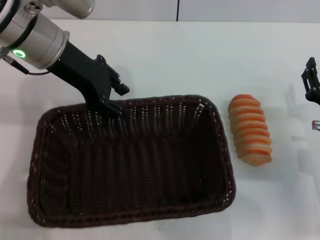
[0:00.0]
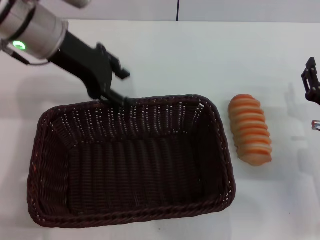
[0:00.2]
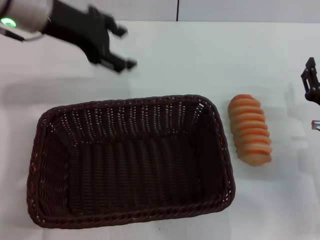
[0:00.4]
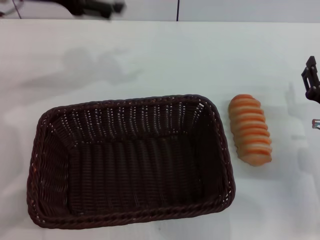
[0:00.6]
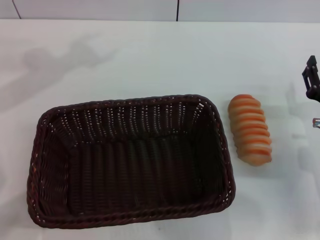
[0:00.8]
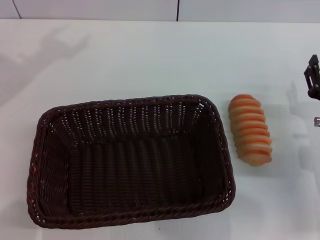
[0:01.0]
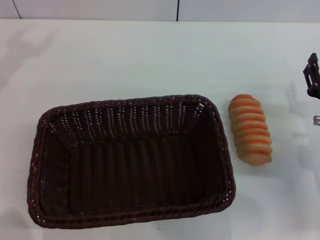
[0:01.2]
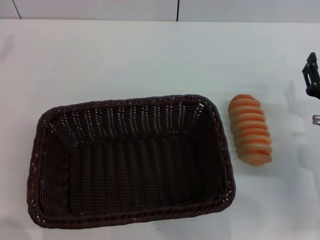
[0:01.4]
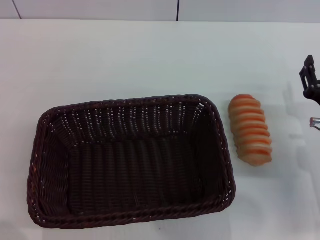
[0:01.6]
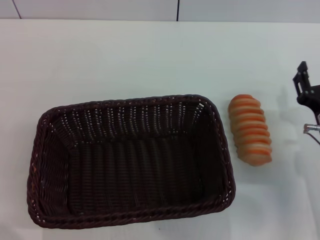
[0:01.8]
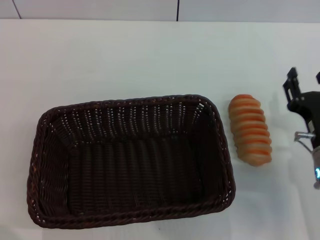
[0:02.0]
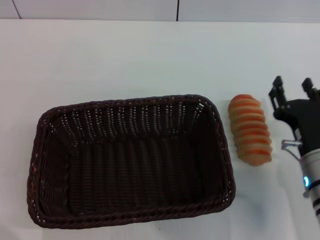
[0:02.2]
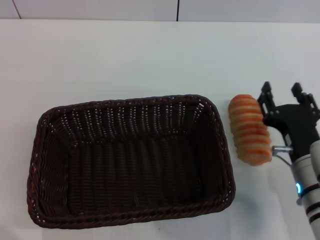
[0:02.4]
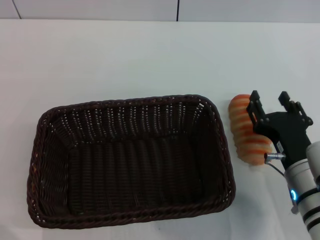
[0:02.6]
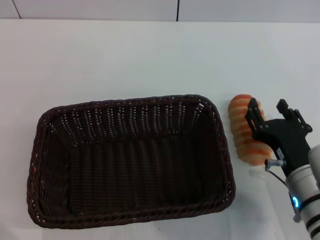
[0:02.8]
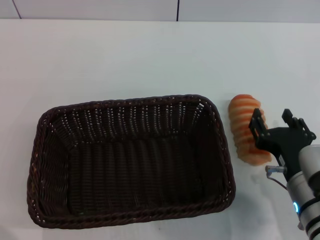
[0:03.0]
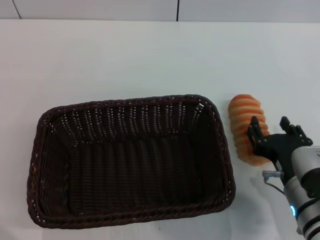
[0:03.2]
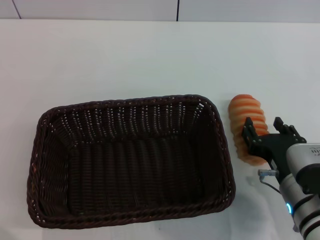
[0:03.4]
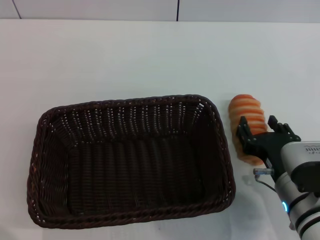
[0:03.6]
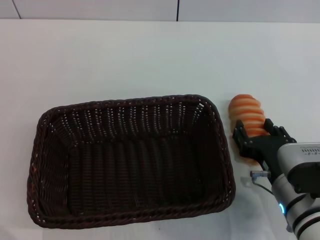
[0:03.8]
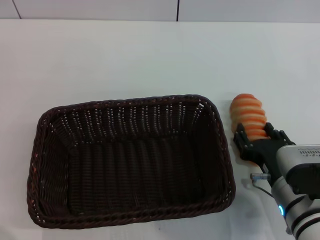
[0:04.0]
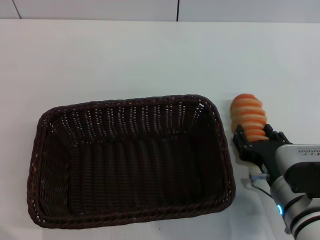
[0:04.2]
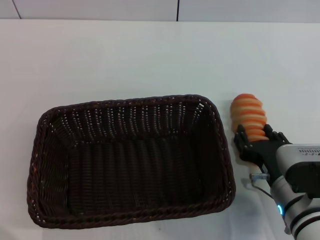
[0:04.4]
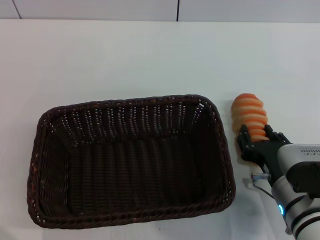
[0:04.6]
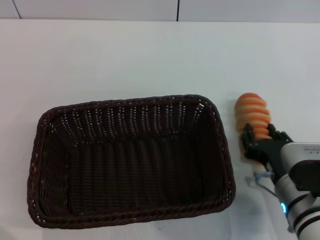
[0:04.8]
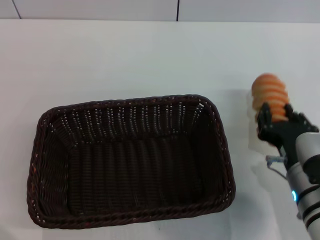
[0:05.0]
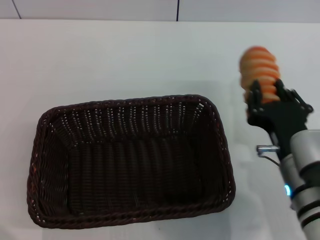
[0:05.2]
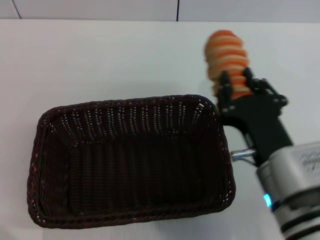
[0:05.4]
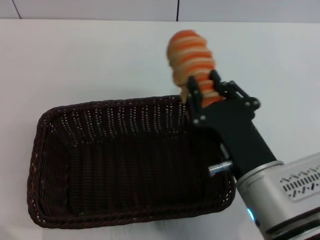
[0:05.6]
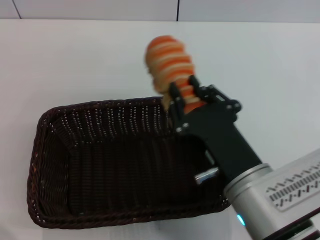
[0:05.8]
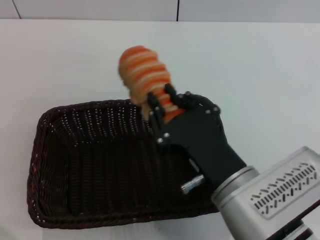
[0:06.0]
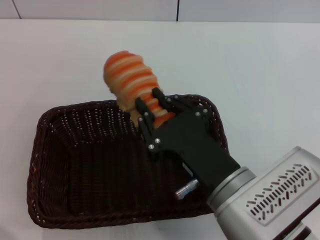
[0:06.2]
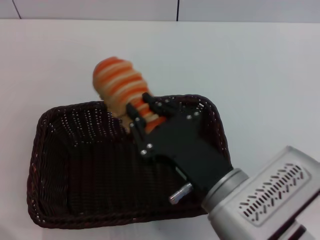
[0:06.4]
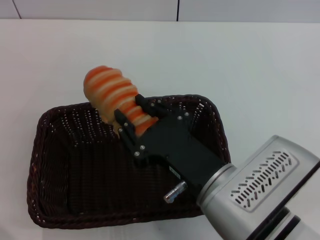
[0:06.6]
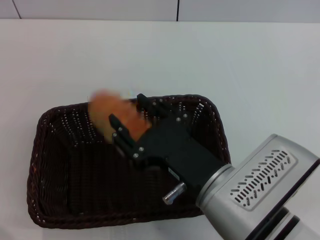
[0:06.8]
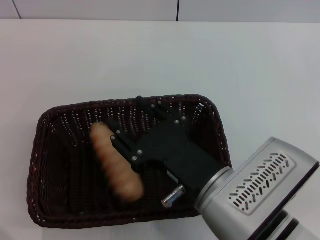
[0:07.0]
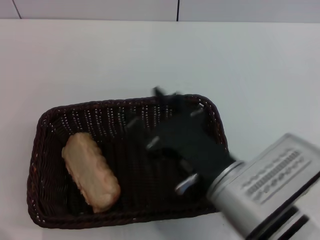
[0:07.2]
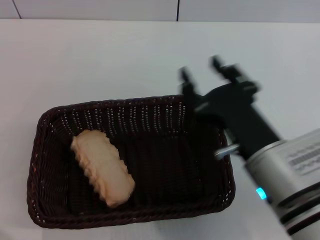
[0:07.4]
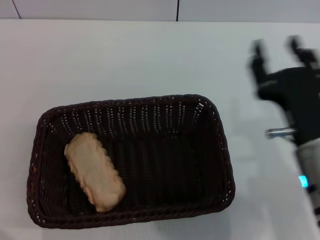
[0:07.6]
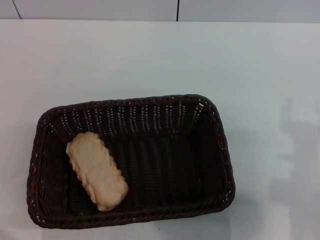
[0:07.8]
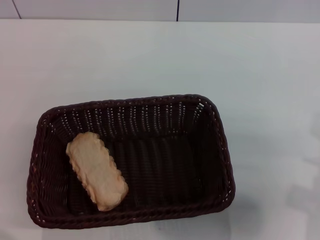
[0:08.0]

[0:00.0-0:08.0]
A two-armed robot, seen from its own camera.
Step, 0:00.6 to 0:04.8: Pick up the long bread with the right gripper.
Step, 0:05.0 to 0:06.8: Place the long bread into the dark basket with the right gripper.
0:00.0 to 0:01.6: The left gripper travels to the left by approximately 25 cm, and opens up.
0:01.6 to 0:03.2: The right gripper heads to the left and backward, covering approximately 10 cm.
0:03.2 to 0:04.8: The right gripper closes.
0:04.8 to 0:06.4: The right gripper moves to the left and upward, approximately 15 cm, and closes up.
0:06.4 to 0:08.0: The right gripper travels to the right by roughly 15 cm, and opens.

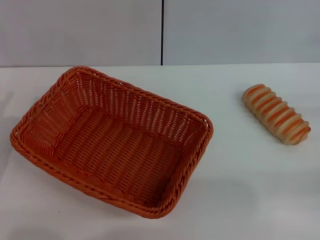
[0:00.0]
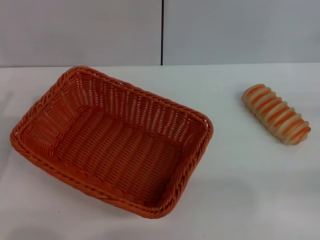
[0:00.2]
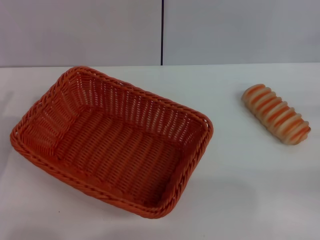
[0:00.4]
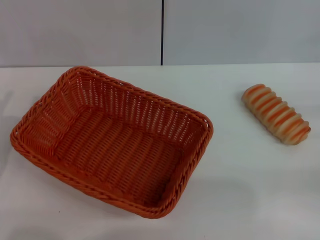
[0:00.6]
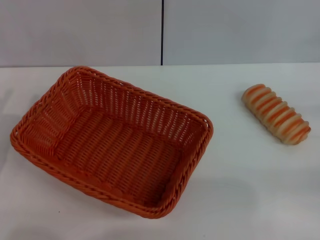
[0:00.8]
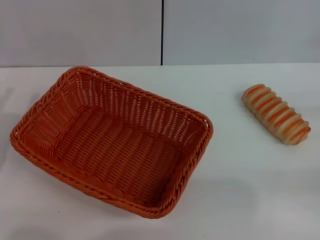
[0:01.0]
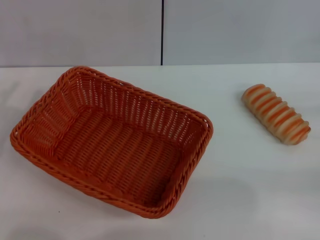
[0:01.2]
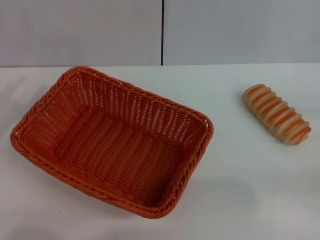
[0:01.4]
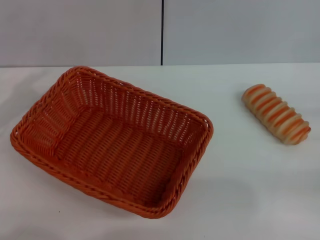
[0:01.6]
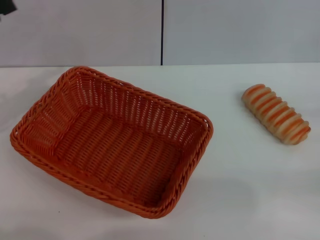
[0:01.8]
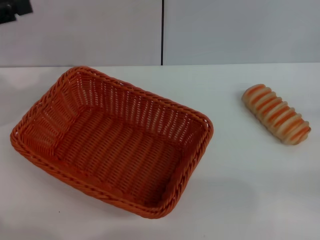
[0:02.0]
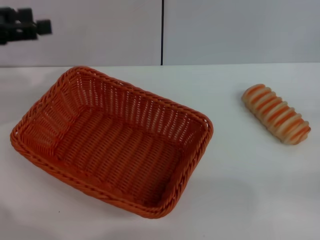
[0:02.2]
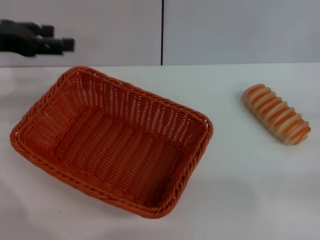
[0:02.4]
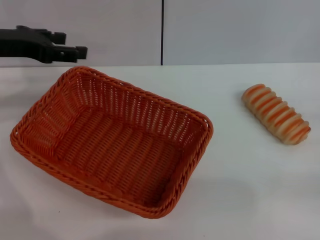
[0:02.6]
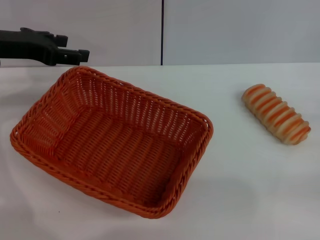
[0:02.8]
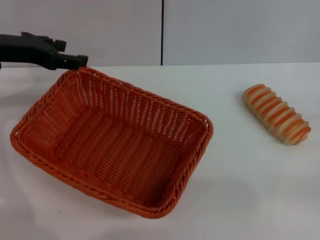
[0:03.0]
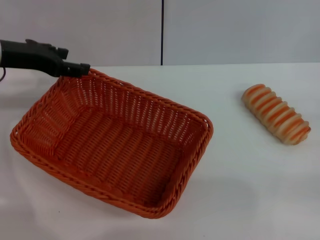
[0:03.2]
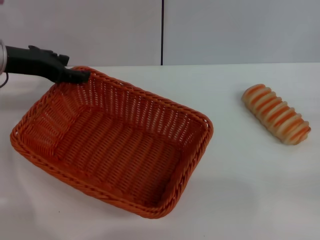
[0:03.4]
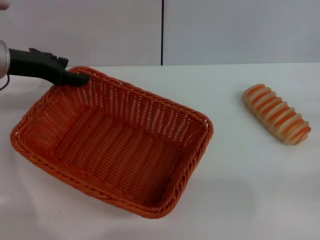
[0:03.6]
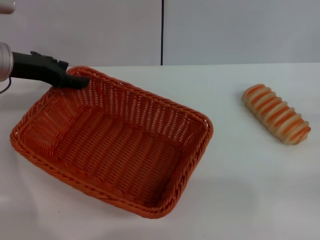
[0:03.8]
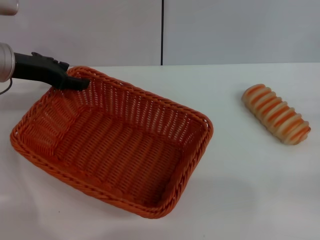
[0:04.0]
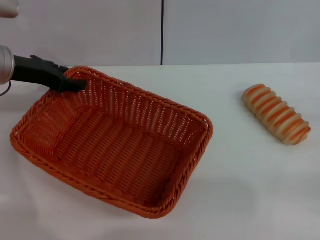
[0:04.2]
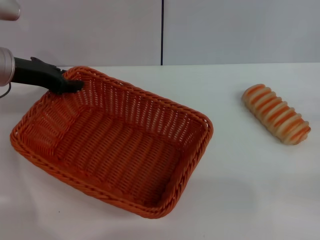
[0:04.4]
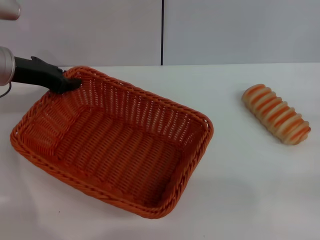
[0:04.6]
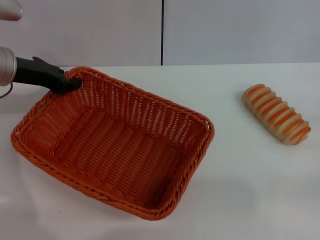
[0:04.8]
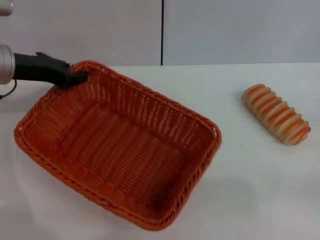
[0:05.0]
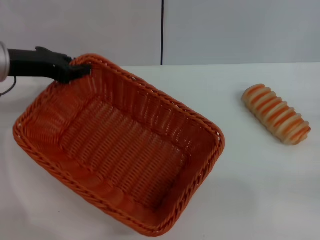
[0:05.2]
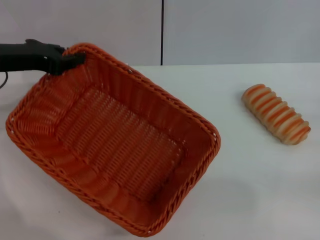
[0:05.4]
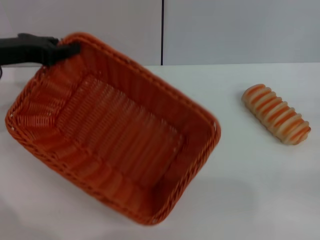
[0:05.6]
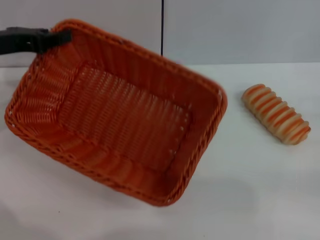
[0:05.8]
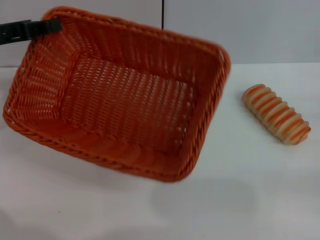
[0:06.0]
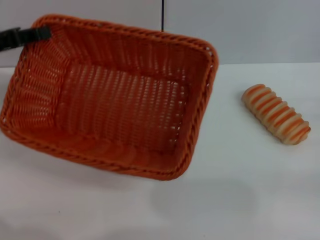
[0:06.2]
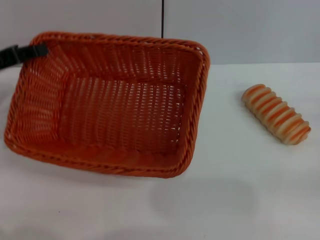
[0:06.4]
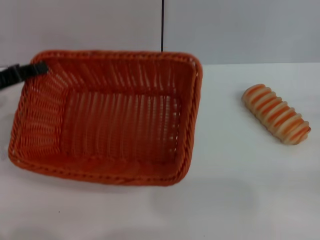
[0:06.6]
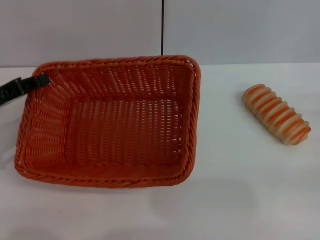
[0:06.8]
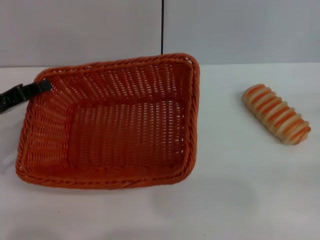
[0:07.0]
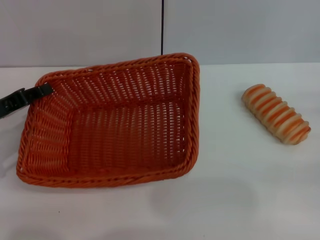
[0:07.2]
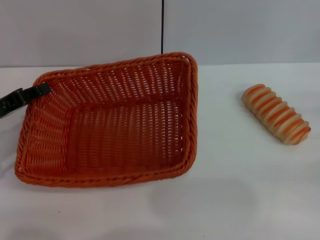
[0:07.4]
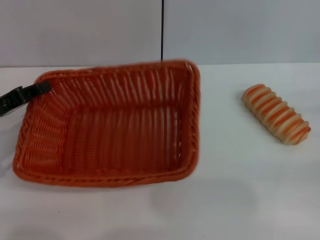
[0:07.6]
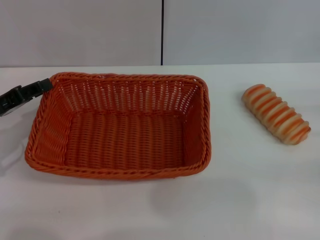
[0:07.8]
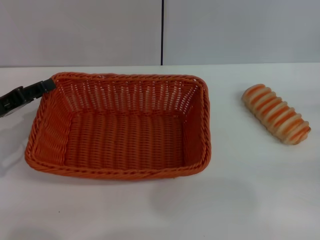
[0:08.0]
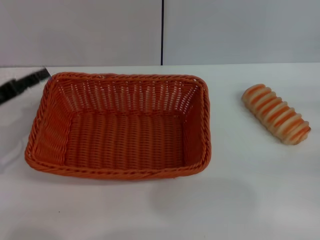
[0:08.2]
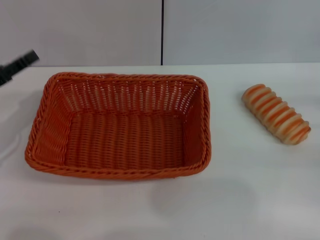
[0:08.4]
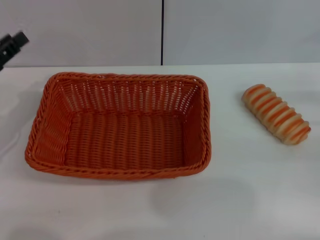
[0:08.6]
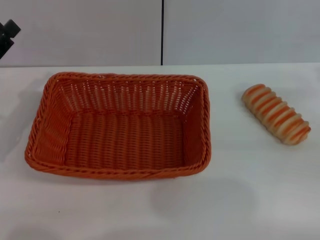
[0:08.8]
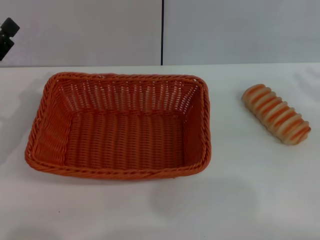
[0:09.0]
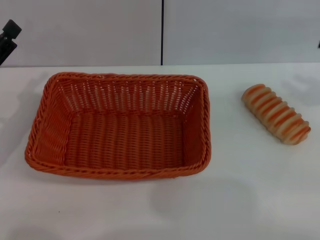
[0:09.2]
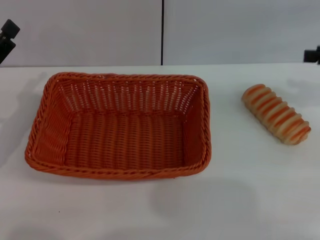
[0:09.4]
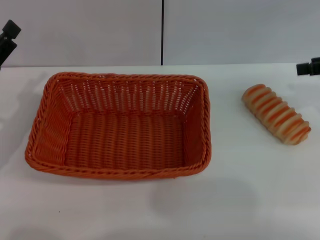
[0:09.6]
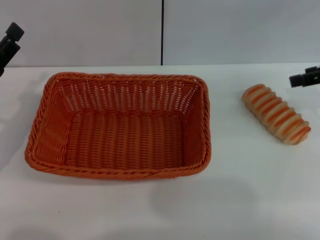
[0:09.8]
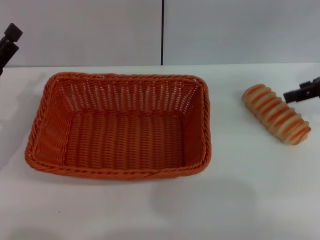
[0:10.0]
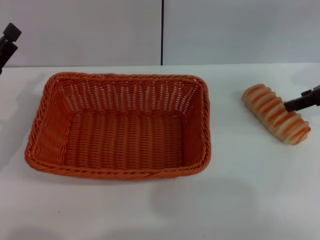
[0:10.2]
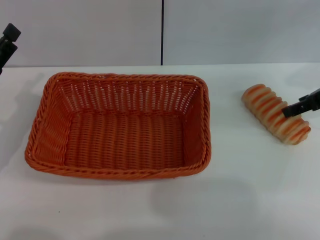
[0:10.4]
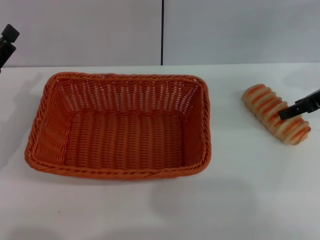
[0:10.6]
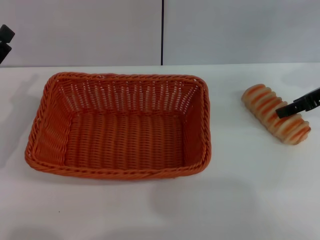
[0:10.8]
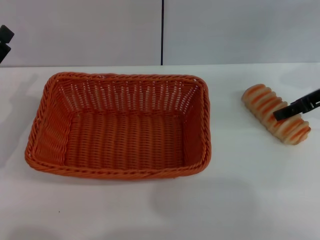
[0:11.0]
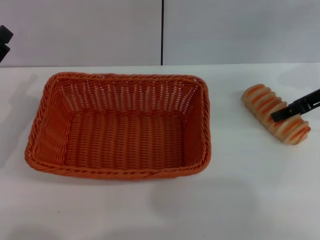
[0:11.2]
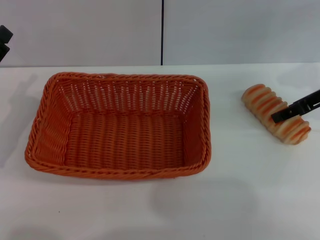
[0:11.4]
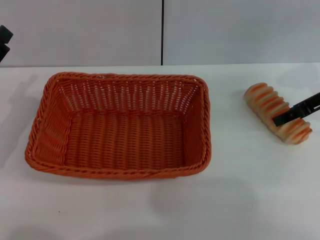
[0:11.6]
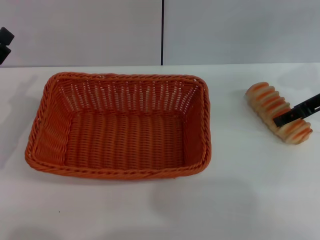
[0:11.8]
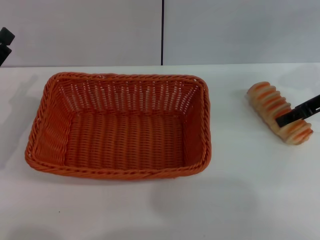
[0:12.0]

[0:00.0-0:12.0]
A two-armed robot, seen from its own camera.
Step, 0:00.0 to 0:05.6: Pick up the light basket with the left gripper.
Step, 0:05.8 to 0:08.2: Place the light basket in the center of view with the left gripper.
0:01.6 to 0:03.0: The left gripper goes approximately 15 cm forward and to the right.
0:03.0 to 0:04.4: There are only small adjustments of the grippers.
0:04.4 to 0:06.0: The left gripper ends up approximately 5 cm from where it was, and closes its fingers.
0:06.0 to 0:07.6: The left gripper goes roughly 10 cm downward and backward.
0:07.6 to 0:09.0: The left gripper opens up. The right gripper is displaced upward by approximately 10 cm.
0:09.0 to 0:10.4: The right gripper heads to the left and forward, covering roughly 10 cm.
0:10.4 to 0:12.0: The grippers move only a little.

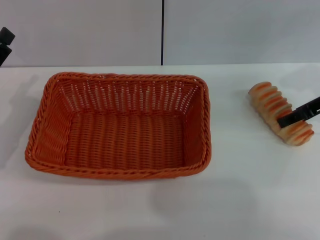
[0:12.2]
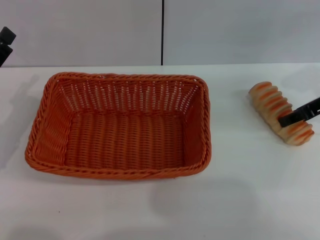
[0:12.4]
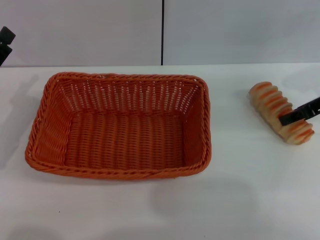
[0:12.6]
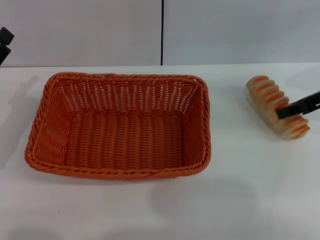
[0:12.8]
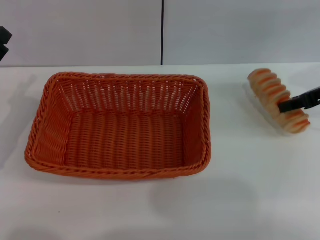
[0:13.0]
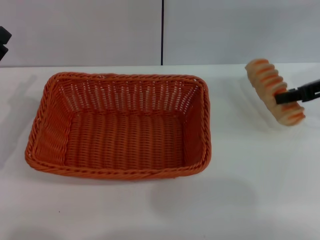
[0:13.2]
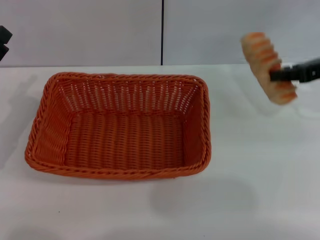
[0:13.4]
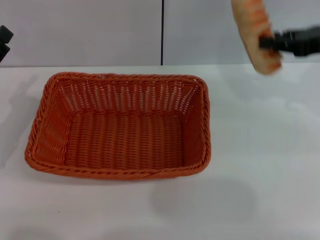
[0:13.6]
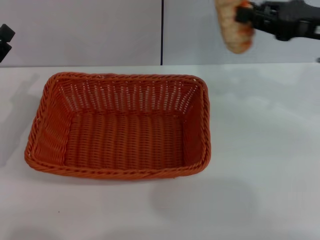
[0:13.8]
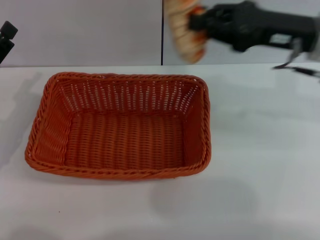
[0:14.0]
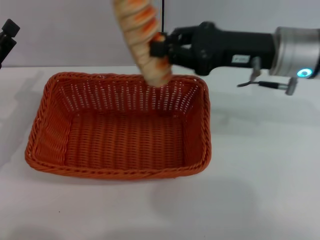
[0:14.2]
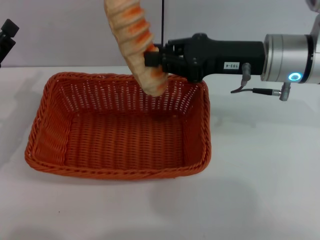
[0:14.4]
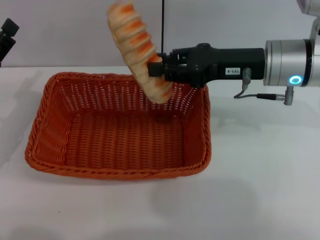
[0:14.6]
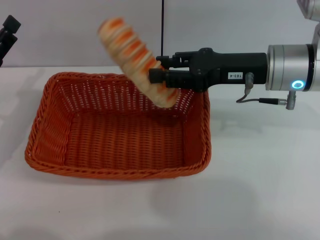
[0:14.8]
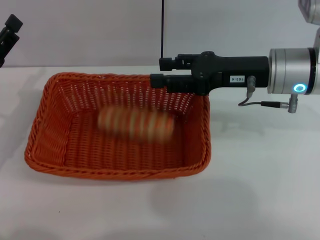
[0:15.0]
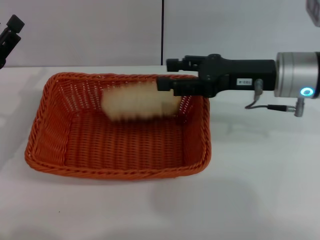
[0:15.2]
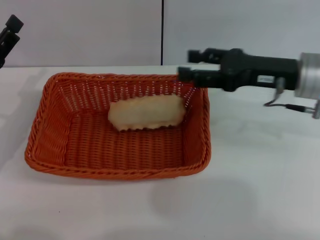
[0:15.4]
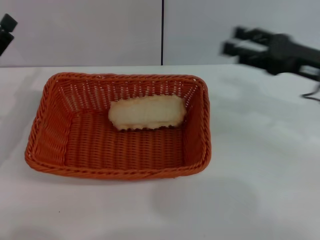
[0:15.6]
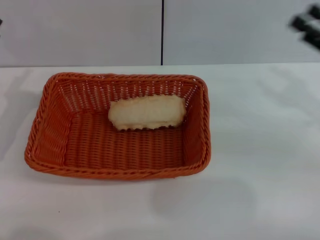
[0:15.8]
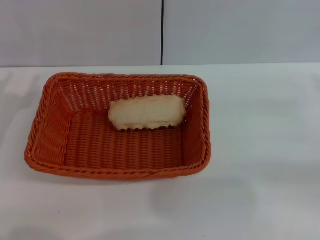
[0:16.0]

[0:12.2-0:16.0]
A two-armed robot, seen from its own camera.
Step, 0:13.8 to 0:15.2: Place the long bread into the light basket with the right gripper.
0:12.2 to 0:13.4: The right gripper closes its fingers.
0:13.4 to 0:14.8: The right gripper heads to the left, covering roughly 15 cm.
0:14.8 to 0:16.0: The right gripper travels to the right and backward by about 20 cm, and opens.
